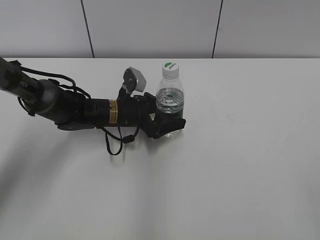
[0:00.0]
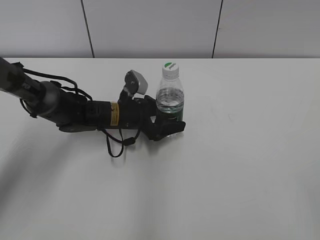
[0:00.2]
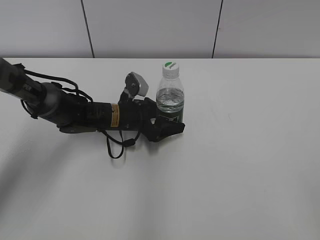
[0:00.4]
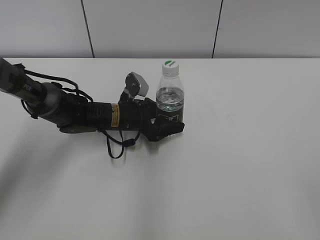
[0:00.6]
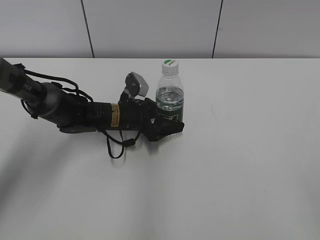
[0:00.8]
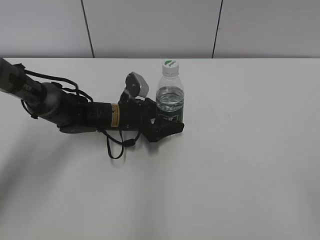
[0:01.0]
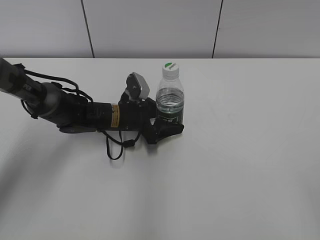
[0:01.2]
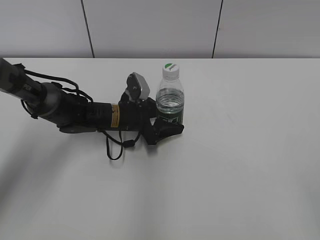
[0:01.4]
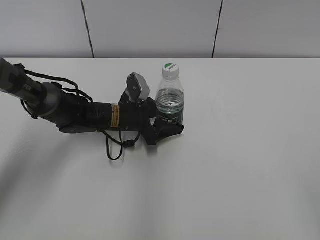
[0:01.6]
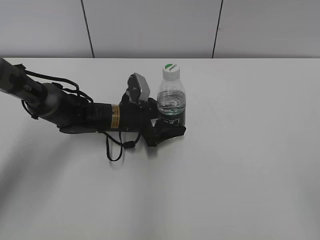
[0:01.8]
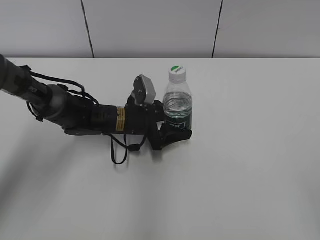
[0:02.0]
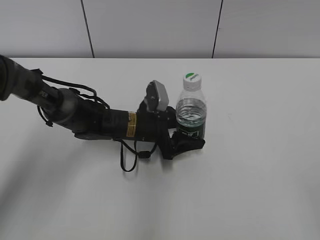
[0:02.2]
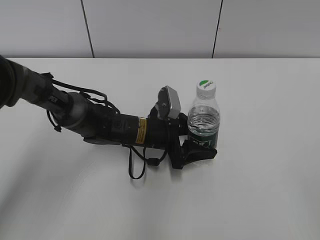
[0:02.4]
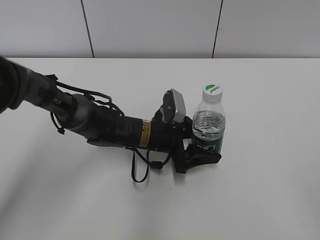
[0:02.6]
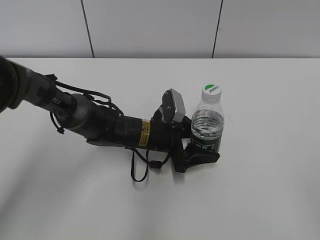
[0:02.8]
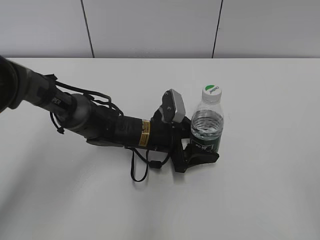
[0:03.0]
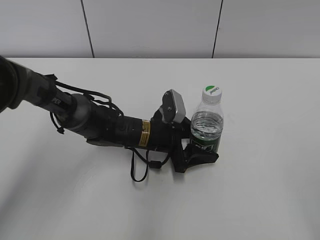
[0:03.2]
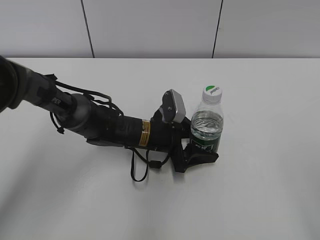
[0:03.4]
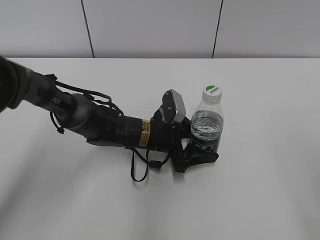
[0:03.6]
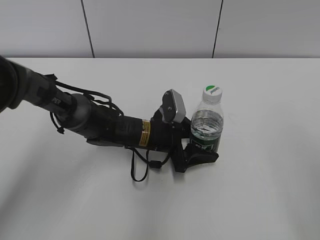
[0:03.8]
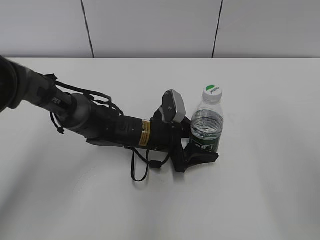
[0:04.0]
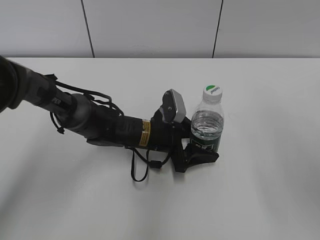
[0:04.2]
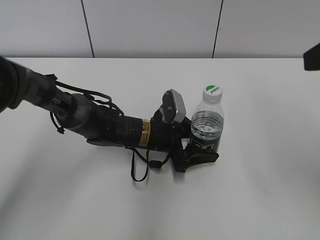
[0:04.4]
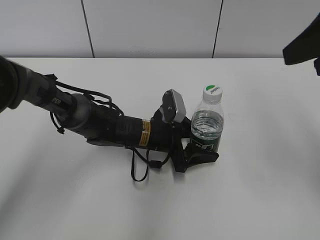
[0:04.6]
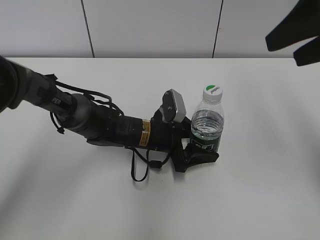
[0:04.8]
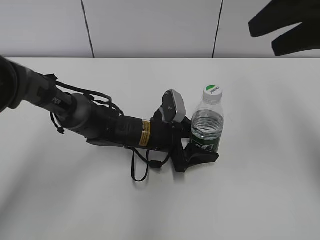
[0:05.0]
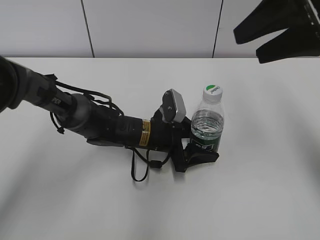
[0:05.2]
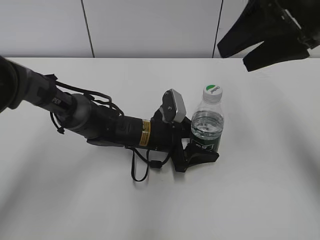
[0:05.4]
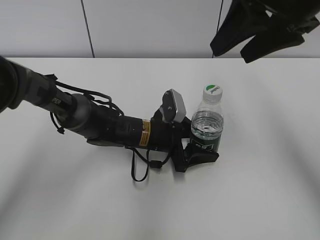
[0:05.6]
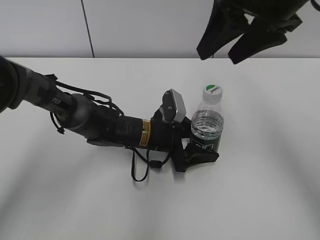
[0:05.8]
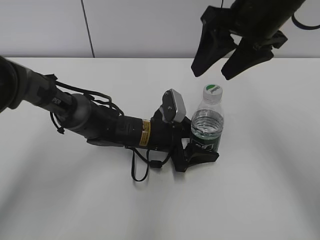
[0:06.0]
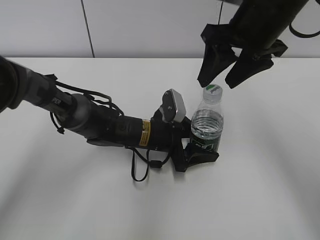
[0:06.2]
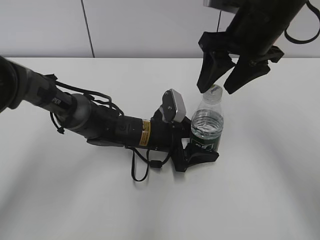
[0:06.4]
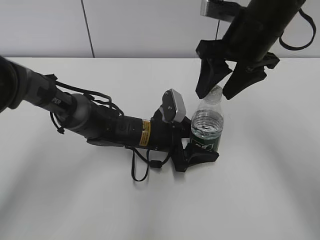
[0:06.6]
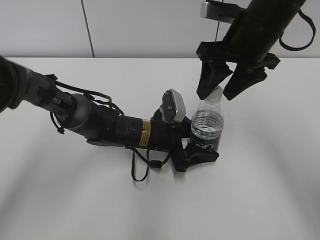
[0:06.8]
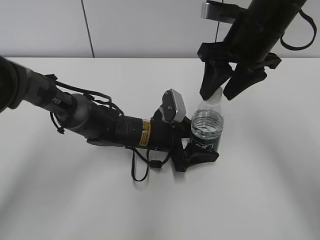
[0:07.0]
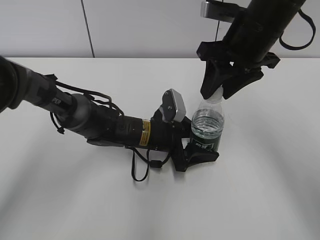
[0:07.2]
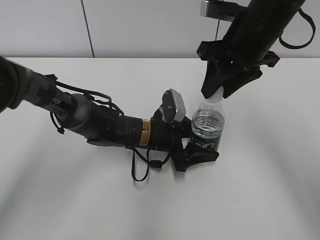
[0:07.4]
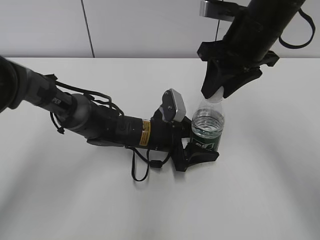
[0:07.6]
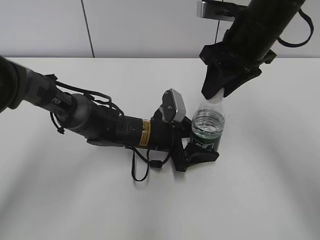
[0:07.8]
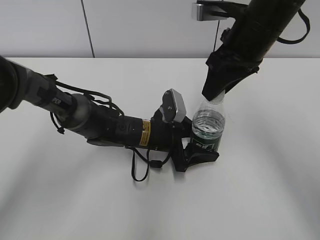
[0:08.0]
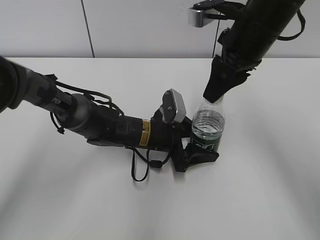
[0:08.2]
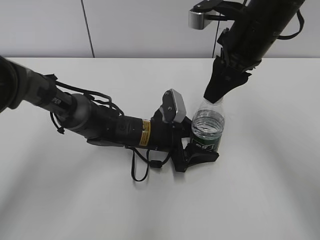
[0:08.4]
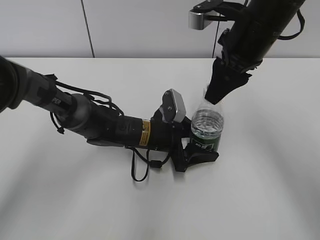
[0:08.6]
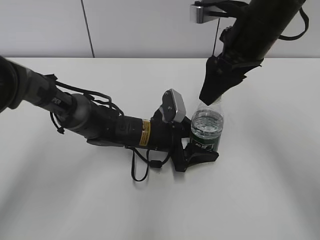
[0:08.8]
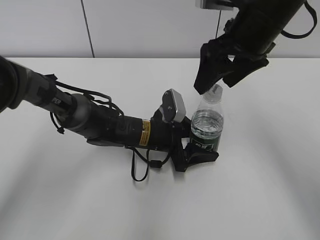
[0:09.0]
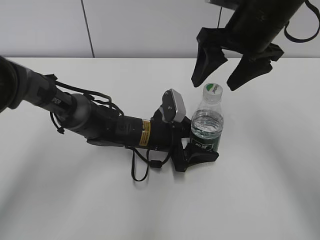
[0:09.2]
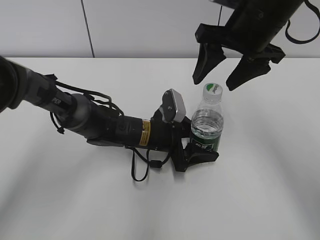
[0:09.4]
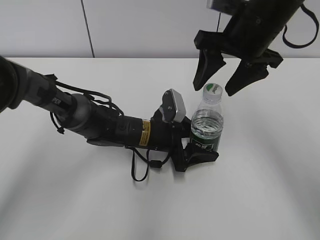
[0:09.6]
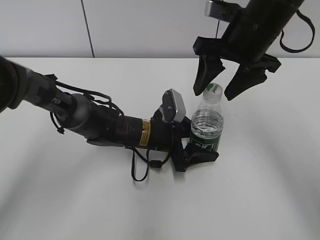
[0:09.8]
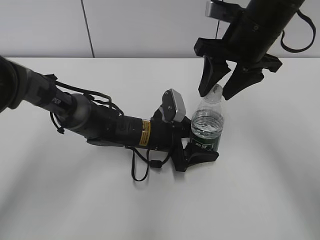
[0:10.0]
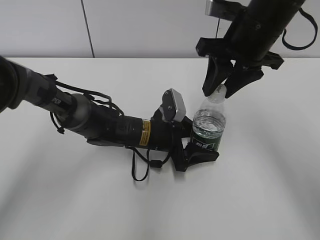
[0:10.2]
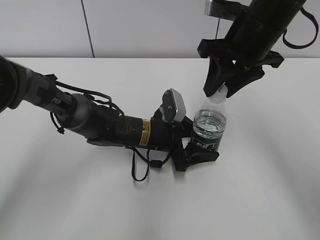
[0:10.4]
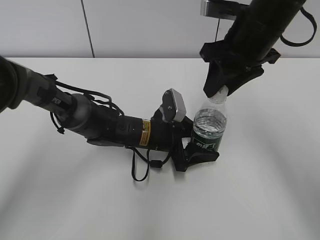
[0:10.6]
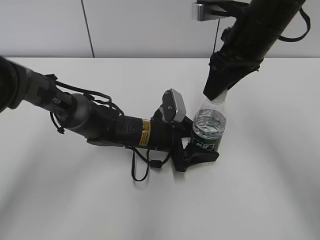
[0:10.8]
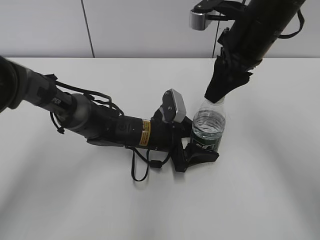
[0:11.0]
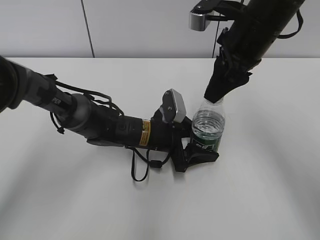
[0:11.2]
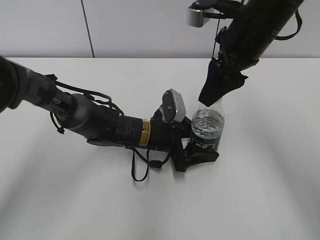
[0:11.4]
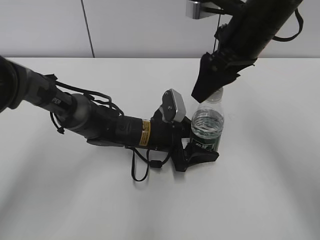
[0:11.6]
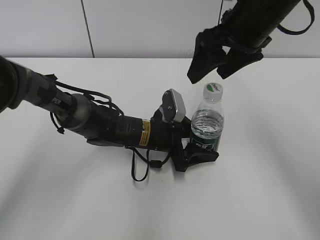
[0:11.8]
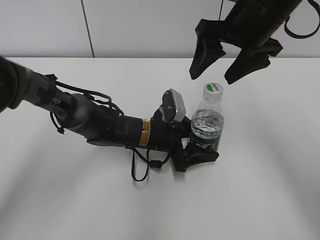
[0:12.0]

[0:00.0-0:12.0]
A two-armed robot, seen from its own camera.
Step, 0:01.4 to 0:03.2: Move the C'estbon to the right with the left hand.
0:00.0 to 0:01.6: The grippers move only a little.
0:01.6 to 0:03.0: The left gripper travels to the right and backward by about 10 cm.
0:03.0 to 0:04.4: The right gripper heads forward, covering about 20 cm.
0:04.4 to 0:06.0: The right gripper shifts approximately 15 cm forward and to the left.
0:06.0 to 0:07.6: The right gripper shifts some 5 cm downward, and closes its fingers.
0:07.6 to 0:09.0: The right gripper opens.
0:09.0 to 0:10.4: The right gripper closes up.
0:10.4 to 0:12.0: The right gripper opens its fingers.

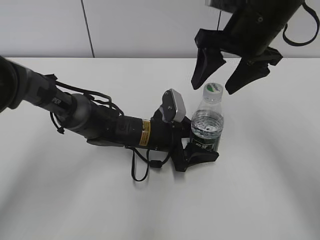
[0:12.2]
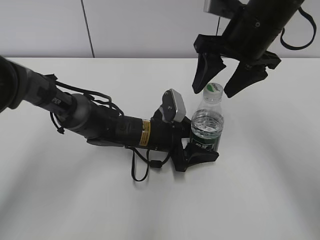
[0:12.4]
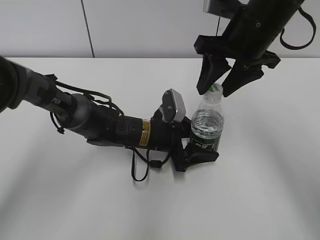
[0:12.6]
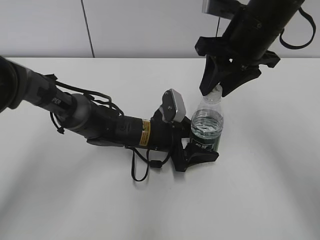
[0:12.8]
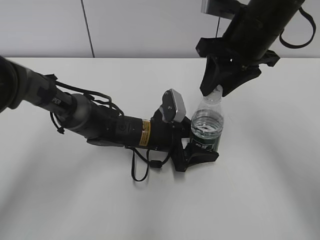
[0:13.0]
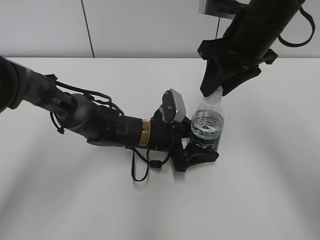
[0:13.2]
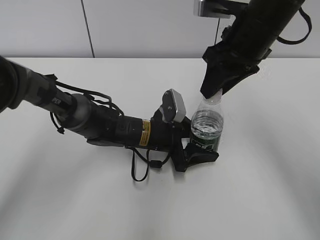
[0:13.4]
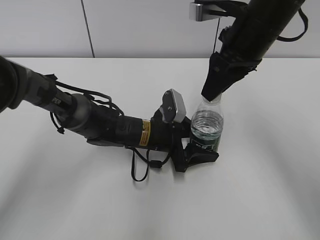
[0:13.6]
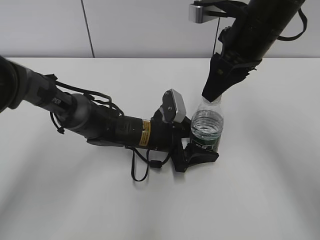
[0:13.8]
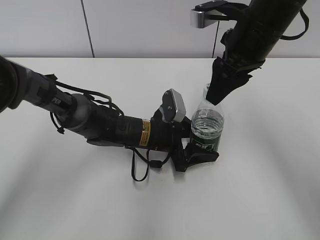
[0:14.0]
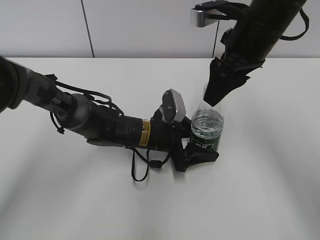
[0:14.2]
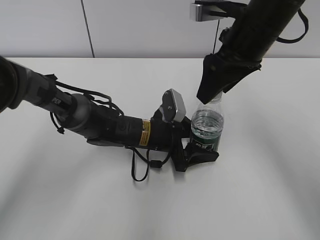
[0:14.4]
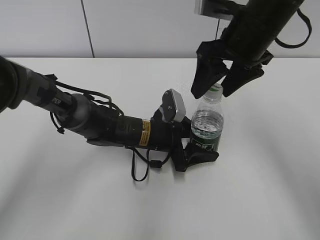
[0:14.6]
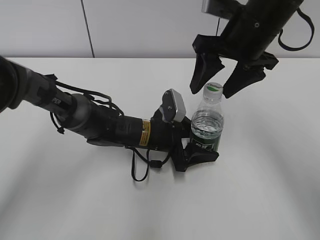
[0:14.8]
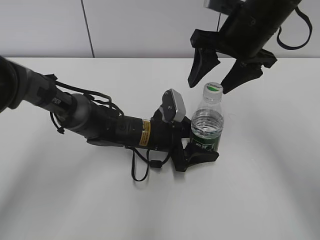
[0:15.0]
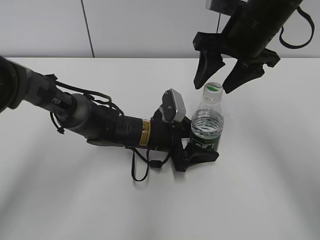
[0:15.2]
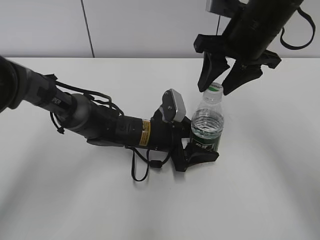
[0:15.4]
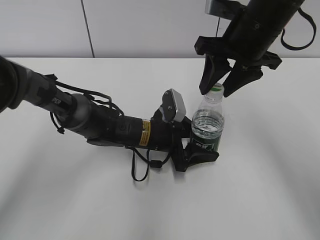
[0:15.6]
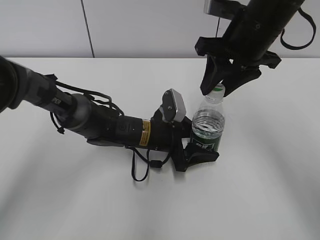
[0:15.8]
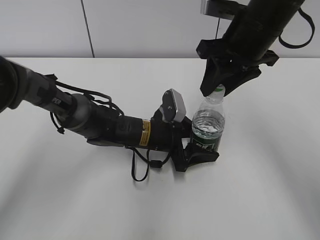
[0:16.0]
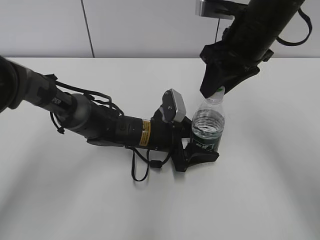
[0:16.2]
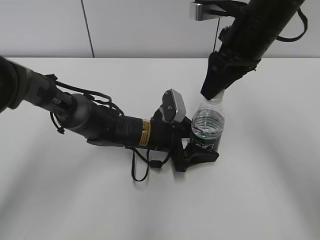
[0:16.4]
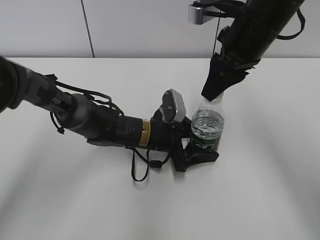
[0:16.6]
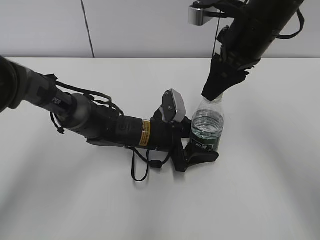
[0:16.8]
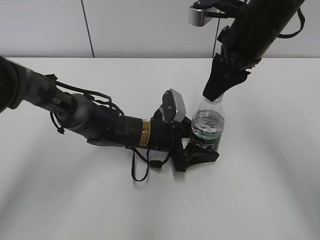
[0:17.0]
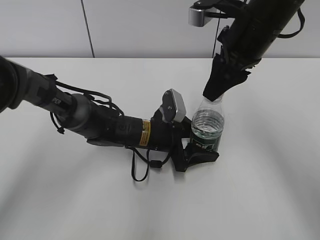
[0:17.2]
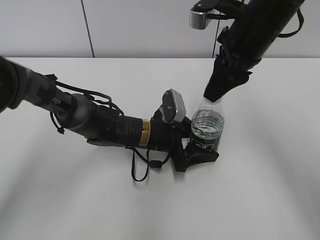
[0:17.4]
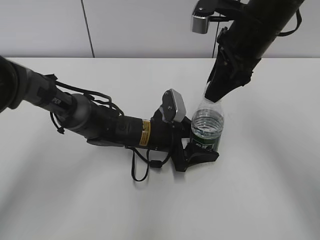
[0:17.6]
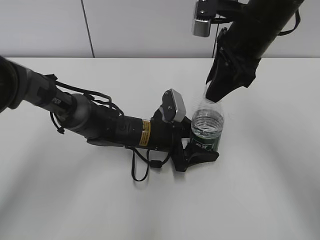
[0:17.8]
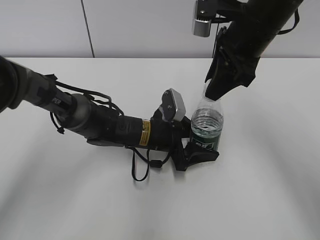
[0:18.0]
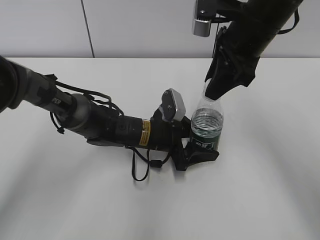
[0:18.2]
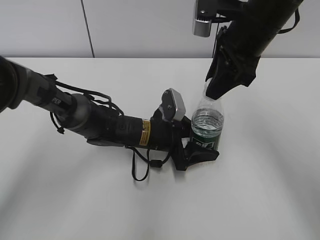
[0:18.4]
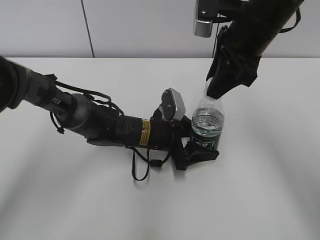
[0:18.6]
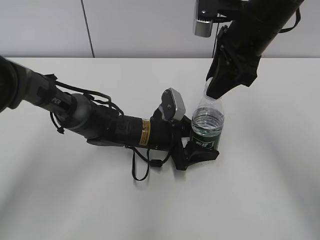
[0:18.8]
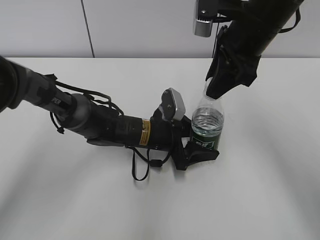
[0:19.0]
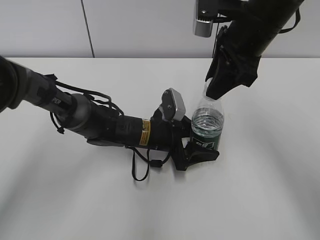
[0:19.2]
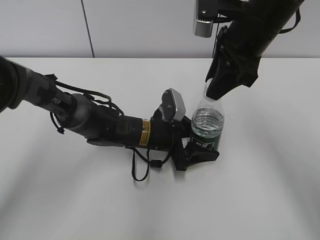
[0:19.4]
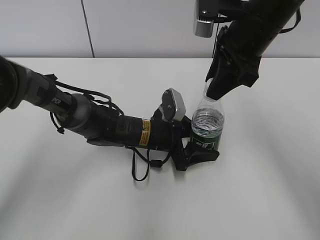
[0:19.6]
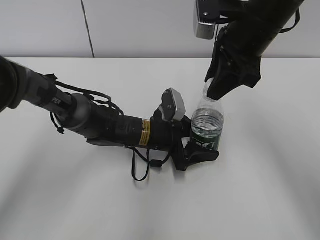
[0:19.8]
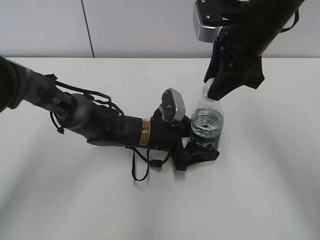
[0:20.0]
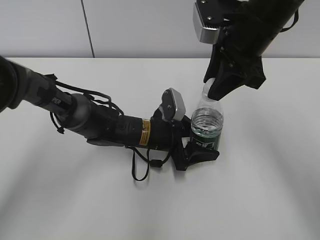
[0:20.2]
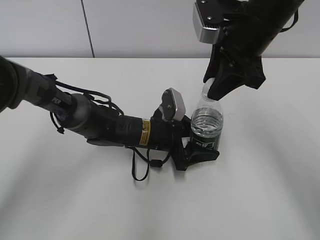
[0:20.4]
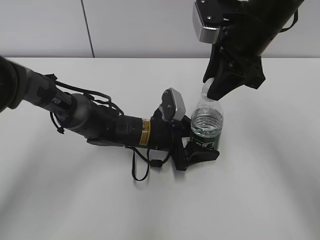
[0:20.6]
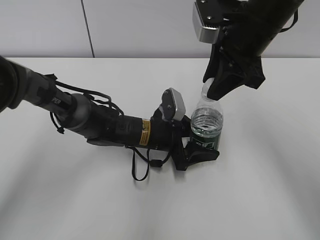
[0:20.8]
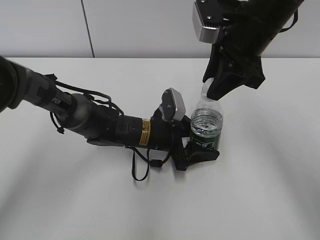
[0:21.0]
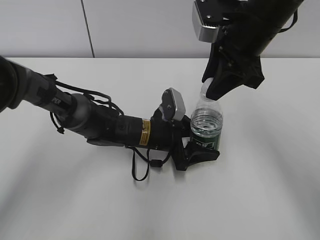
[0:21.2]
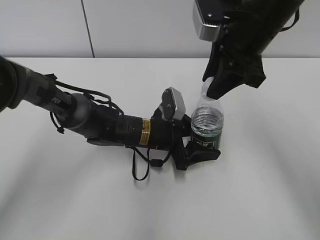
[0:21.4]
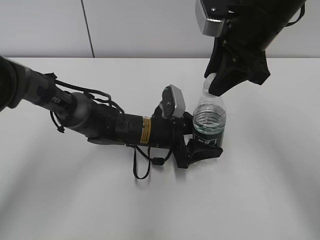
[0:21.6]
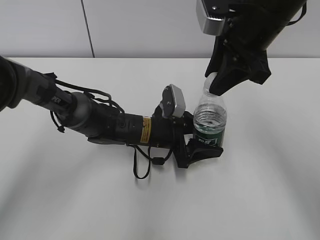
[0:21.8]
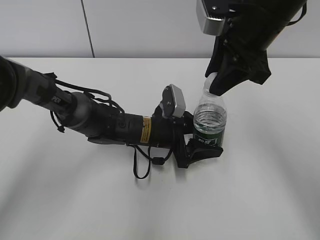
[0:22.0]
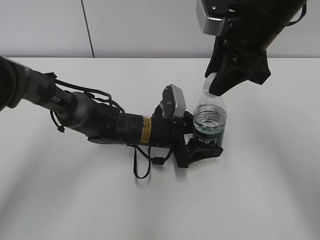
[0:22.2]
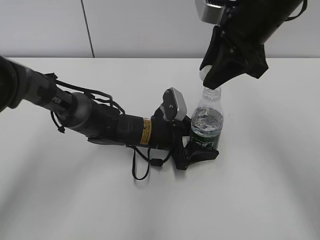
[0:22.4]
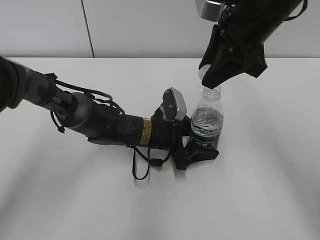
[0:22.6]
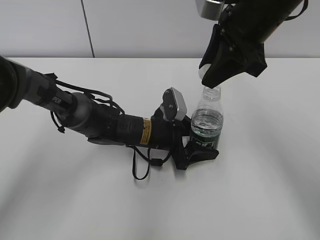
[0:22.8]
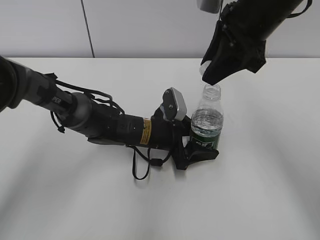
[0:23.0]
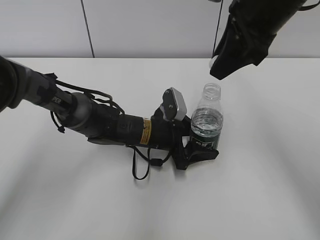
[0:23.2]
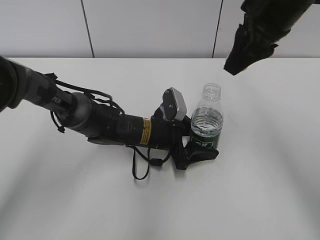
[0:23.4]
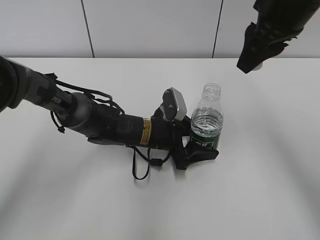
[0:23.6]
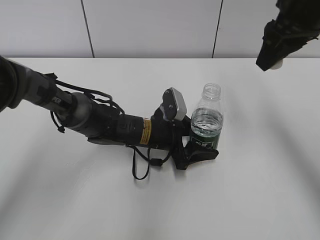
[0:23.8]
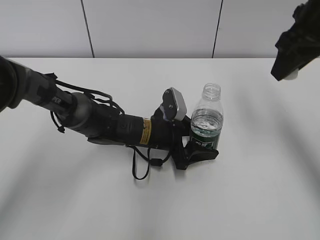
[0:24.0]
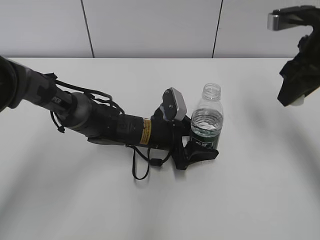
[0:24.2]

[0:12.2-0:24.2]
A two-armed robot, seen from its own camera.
Step, 0:12.2 to 0:22.8: Secure the C'estbon with the left hand.
0:12.2 to 0:13.8: The right gripper closes its fingers.
0:13.8 to 0:15.2: The right gripper opens.
0:15.2 to 0:16.6: The right gripper closes.
0:18.2 to 0:22.6: The grippers move only a little.
0:22.6 to 0:24.2: The right gripper moves to the right, roughly 10 cm.
